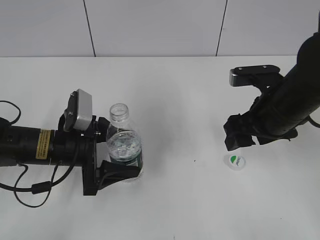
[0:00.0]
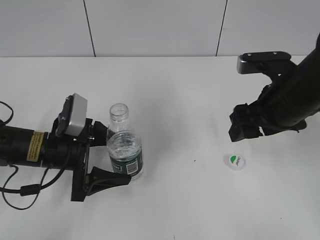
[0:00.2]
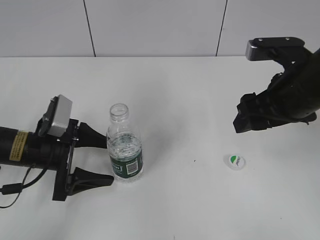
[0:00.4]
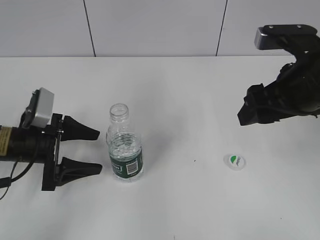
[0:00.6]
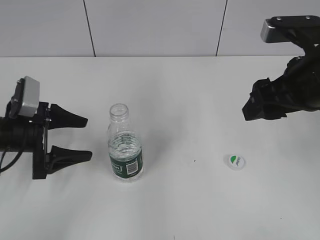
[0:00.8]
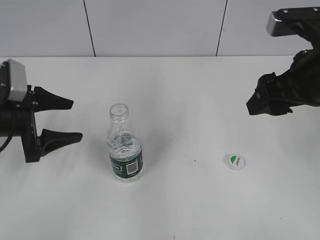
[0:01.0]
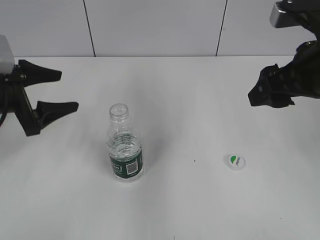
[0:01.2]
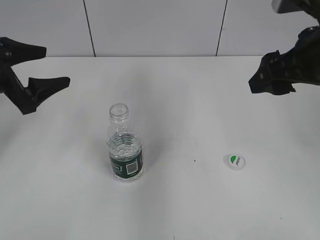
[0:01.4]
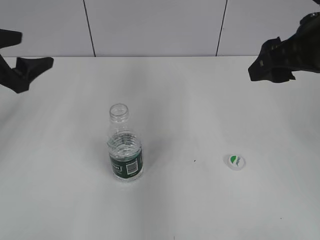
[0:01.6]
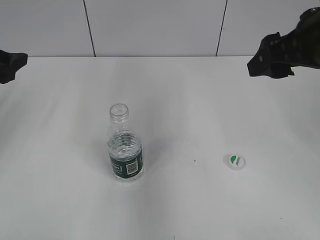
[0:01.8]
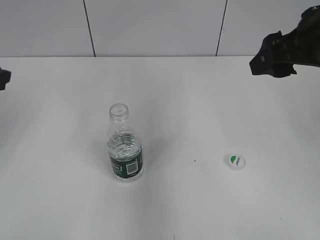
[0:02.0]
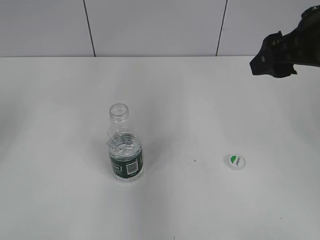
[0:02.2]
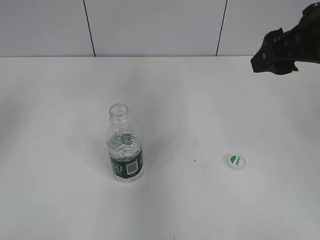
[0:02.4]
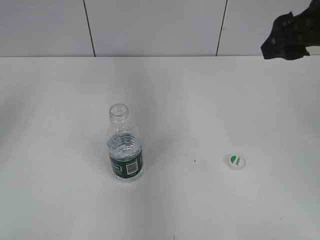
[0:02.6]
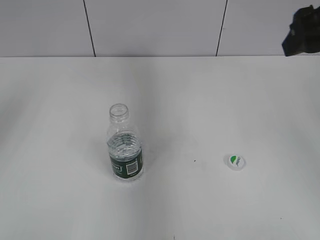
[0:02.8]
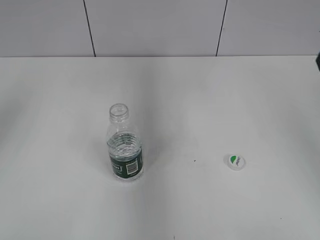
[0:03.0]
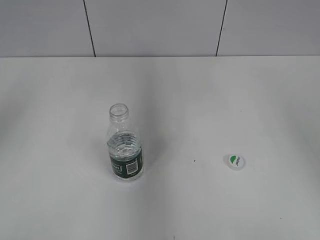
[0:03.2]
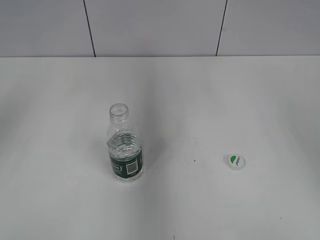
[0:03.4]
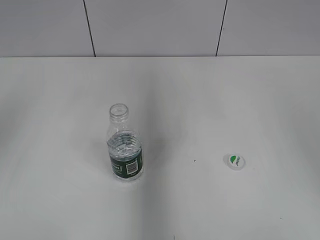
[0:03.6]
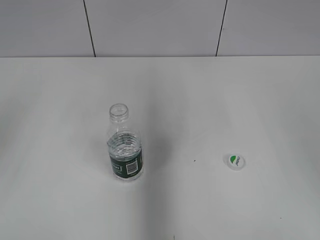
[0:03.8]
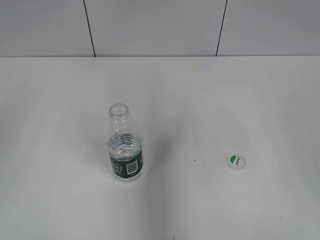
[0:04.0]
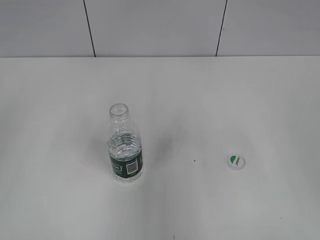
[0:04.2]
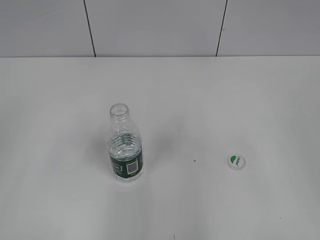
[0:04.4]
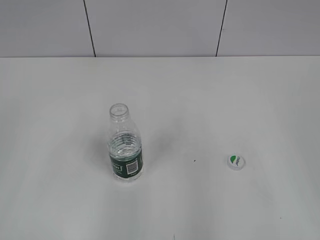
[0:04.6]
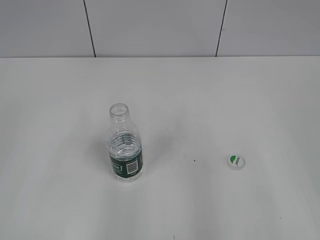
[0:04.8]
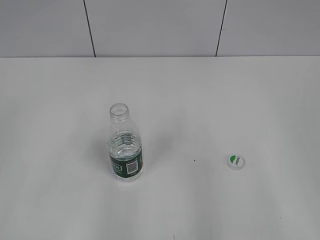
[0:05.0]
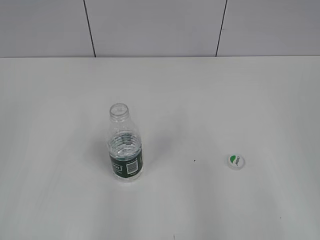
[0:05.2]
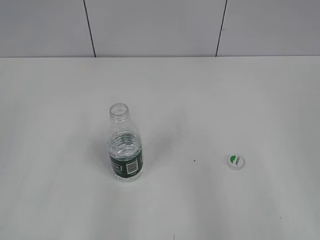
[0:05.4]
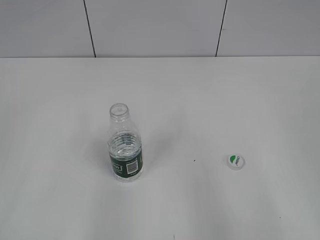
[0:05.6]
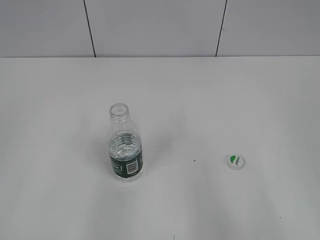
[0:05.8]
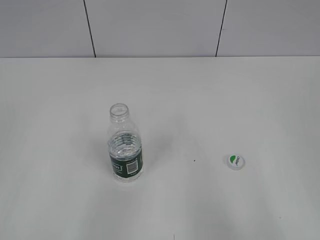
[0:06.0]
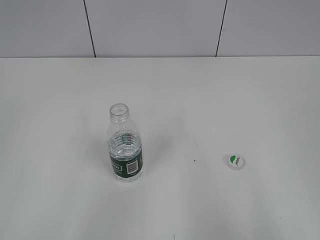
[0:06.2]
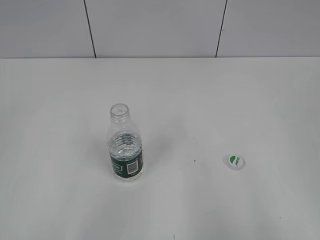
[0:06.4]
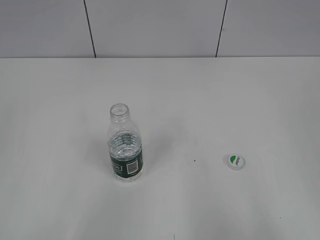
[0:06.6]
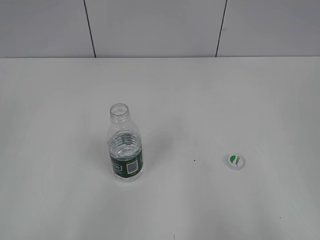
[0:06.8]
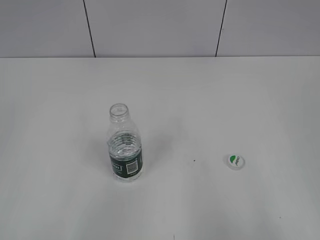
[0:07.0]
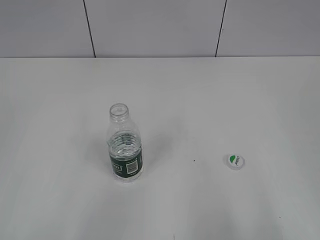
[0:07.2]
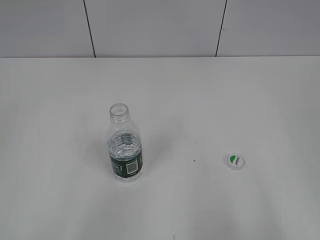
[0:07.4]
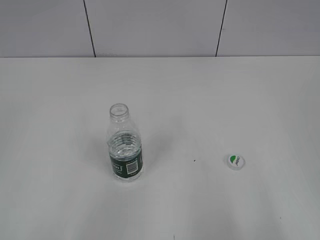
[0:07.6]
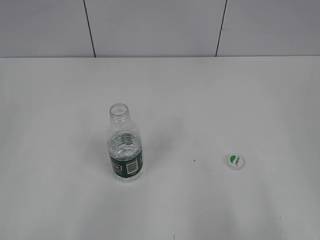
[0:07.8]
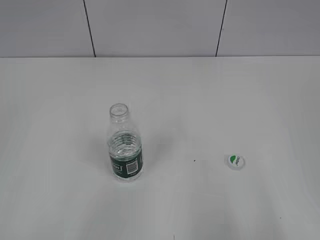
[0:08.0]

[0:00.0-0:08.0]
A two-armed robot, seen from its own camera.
Step, 0:00.0 to 0:00.6: Place the bottle on the table with the left gripper.
0:00.0 to 0:01.6: The left gripper is displaced upward and to the left by some 20 cm. Meanwhile the right gripper goes approximately 10 cm upward.
0:01.6 to 0:03.2: The left gripper goes about 10 cm upward, and closes, while the right gripper heads to the right, covering approximately 5 cm.
0:03.2 to 0:04.8: Both grippers travel together backward, approximately 20 cm.
